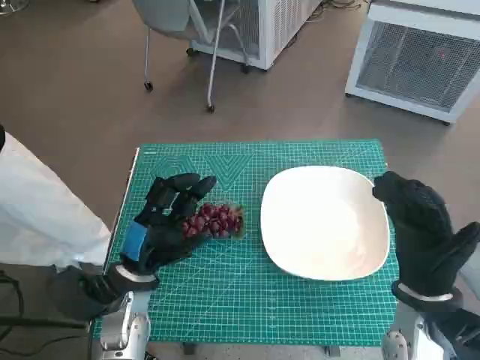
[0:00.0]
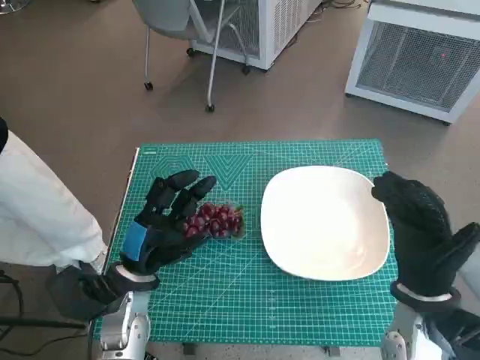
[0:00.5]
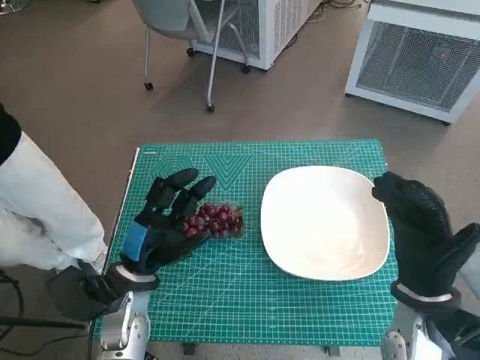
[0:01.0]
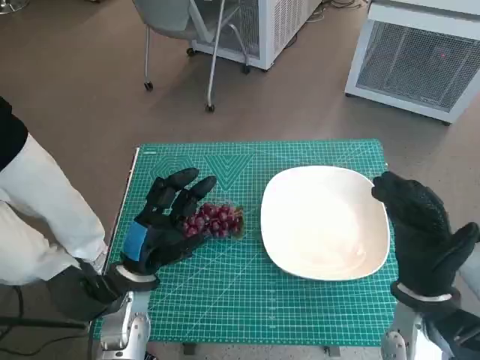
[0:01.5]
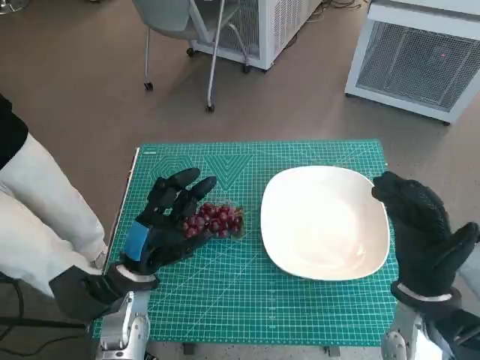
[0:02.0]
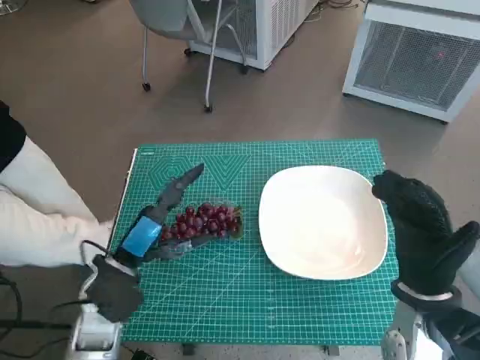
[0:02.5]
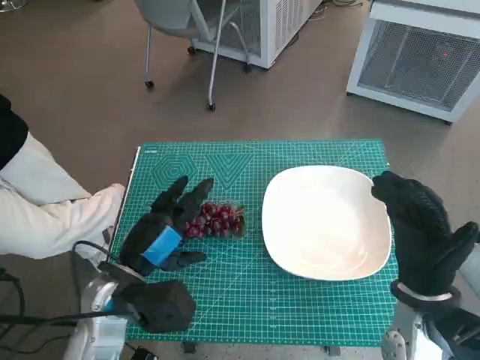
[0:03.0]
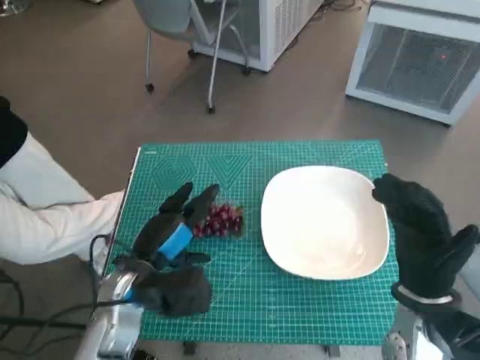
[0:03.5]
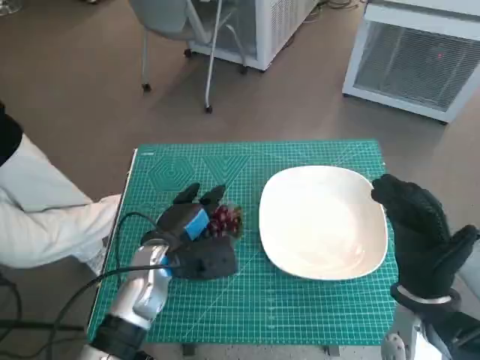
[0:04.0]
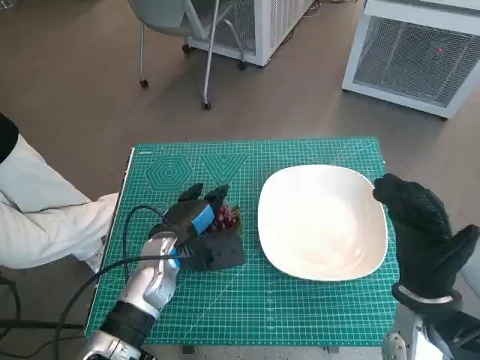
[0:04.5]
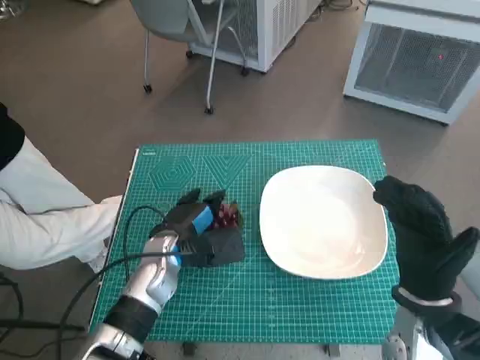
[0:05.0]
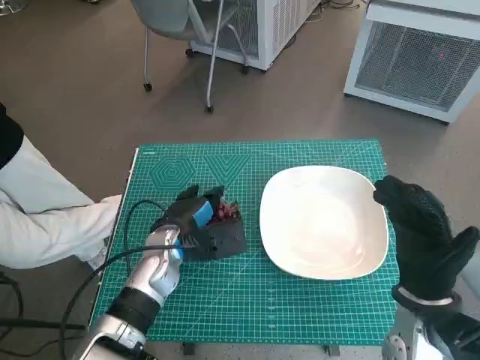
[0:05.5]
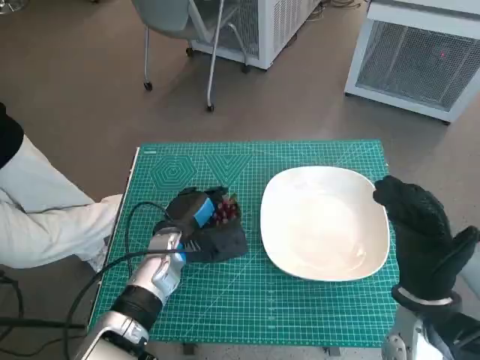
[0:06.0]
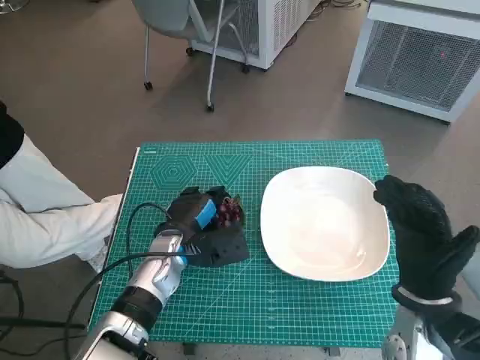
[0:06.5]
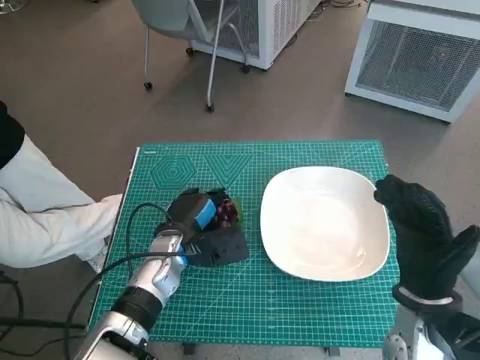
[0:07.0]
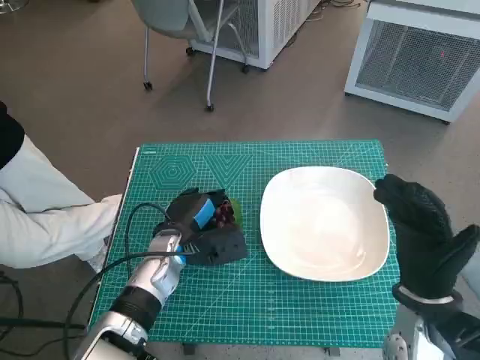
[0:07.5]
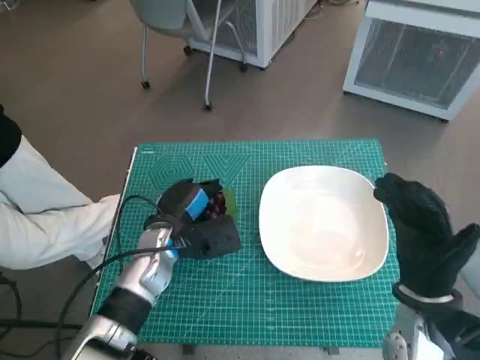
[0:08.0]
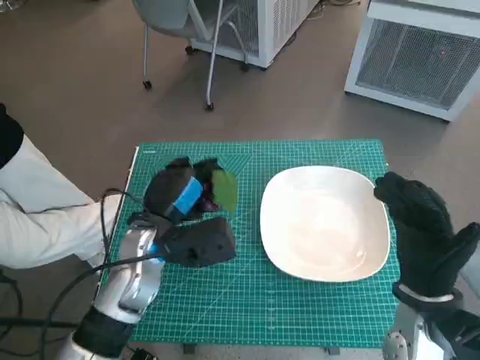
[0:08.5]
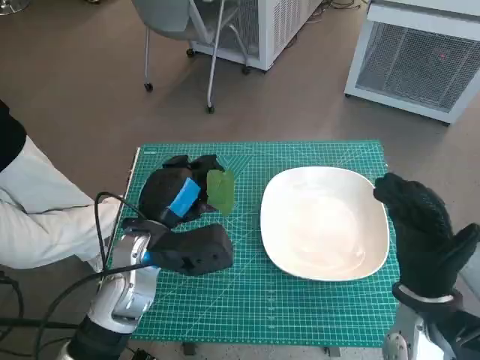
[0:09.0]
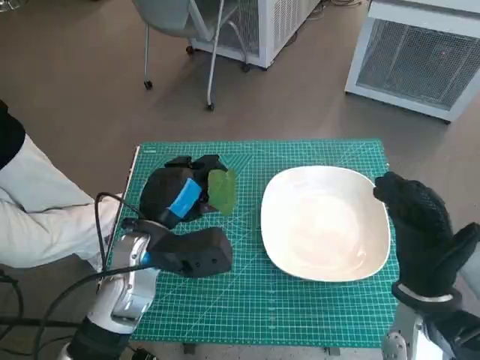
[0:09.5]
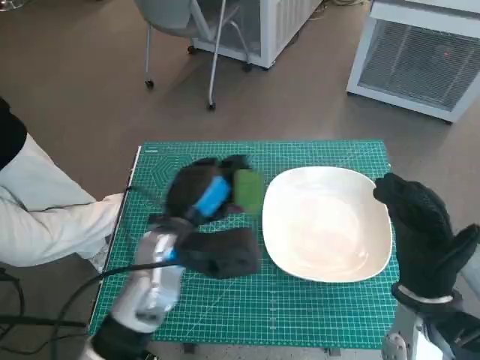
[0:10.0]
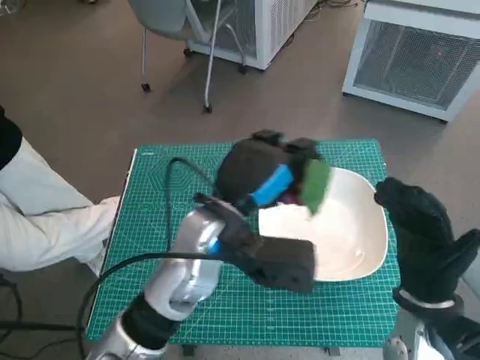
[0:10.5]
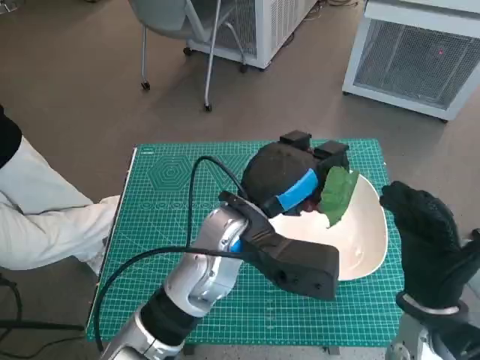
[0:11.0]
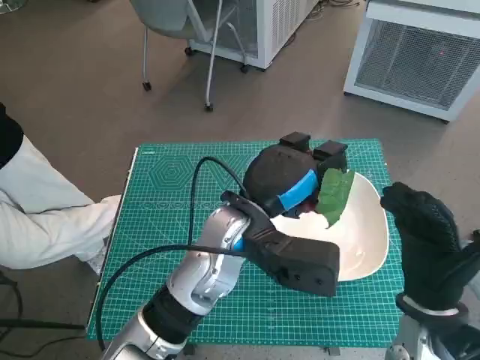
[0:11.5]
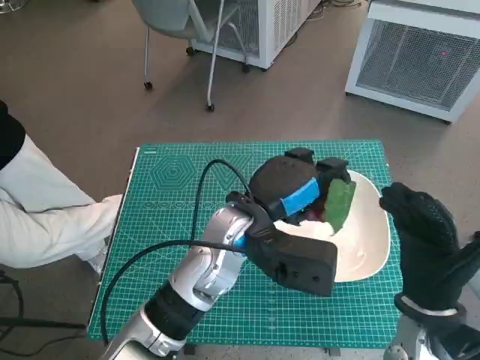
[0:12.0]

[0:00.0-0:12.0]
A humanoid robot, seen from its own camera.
Task of the whole recording: Pick up the grapes and put them on the plate.
Step, 0:00.0 to 0:07.0: Grasp the grapes with left hand.
0:02.0 to 0:04.0: The left hand changes place by some 5 cm.
0:04.0 to 0:08.0: The hands move only a little.
0:08.0 to 0:10.0: The left hand heads upward, covering about 5 cm.
0:10.0 to 0:12.0: The left hand travels to the right by roughly 10 cm.

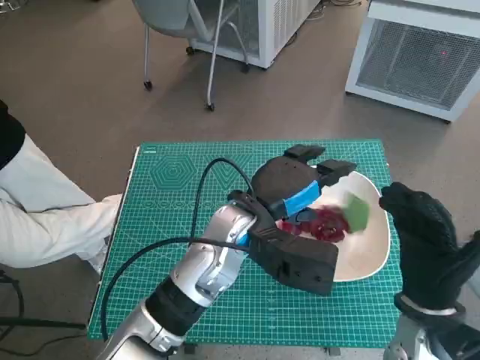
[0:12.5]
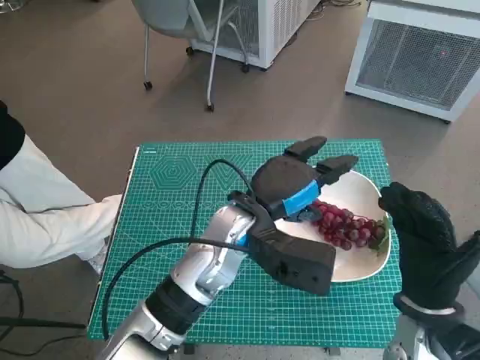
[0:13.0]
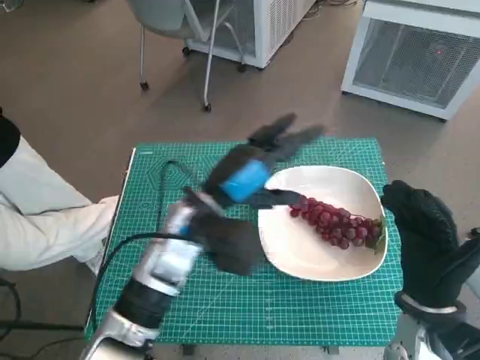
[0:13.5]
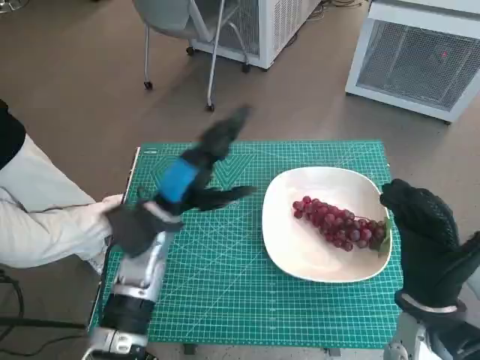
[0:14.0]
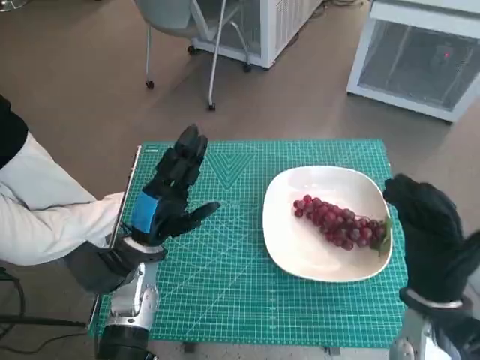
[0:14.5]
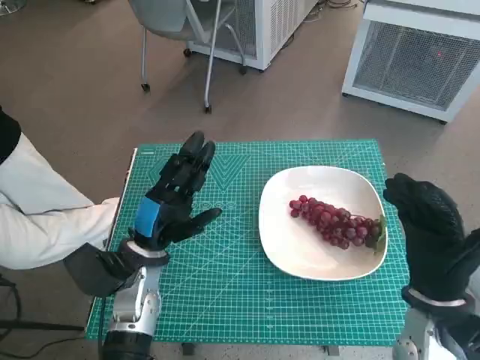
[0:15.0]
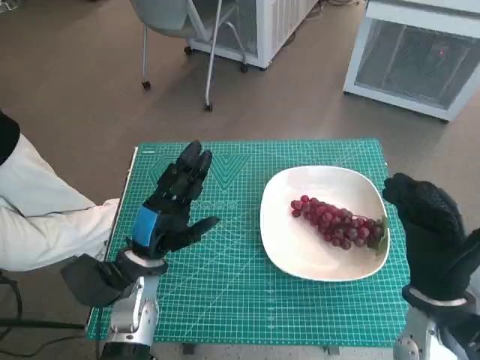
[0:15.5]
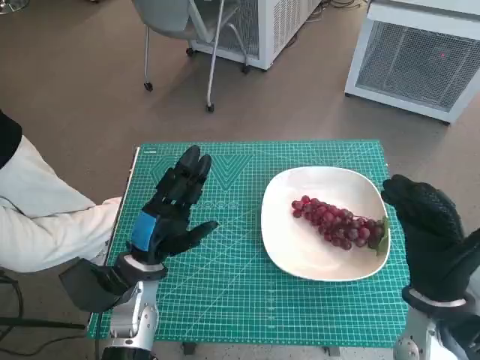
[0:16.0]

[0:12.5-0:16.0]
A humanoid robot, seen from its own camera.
Task of the whole recording: Pick up the grapes and put them on the plate.
0:12.5 to 0:14.5: The left hand moves to the left and downward, about 15 cm.
0:14.5 to 0:16.0: The hands move only a little.

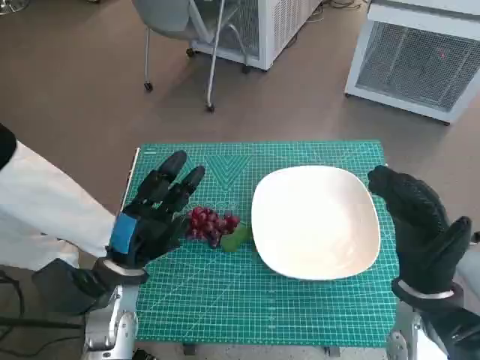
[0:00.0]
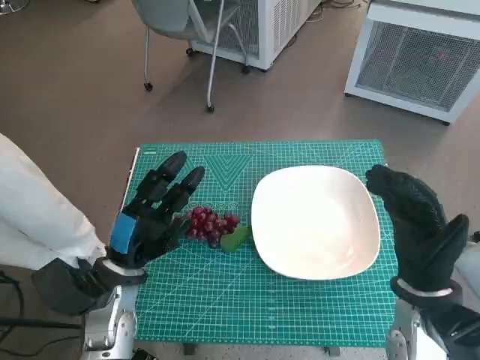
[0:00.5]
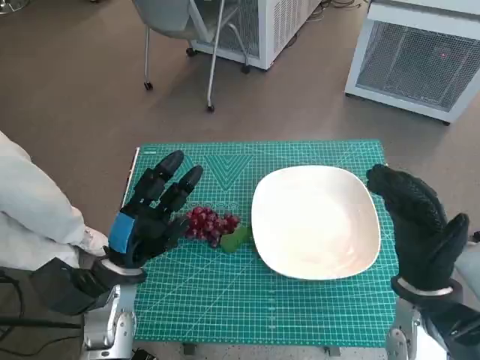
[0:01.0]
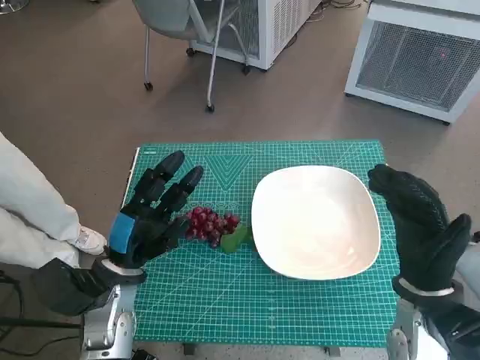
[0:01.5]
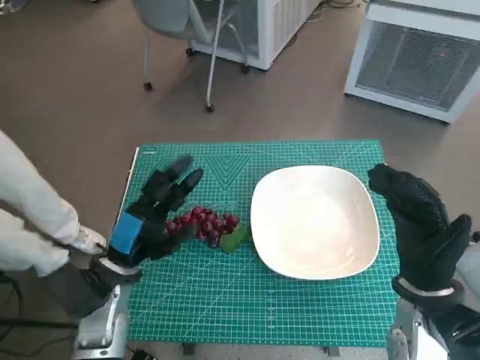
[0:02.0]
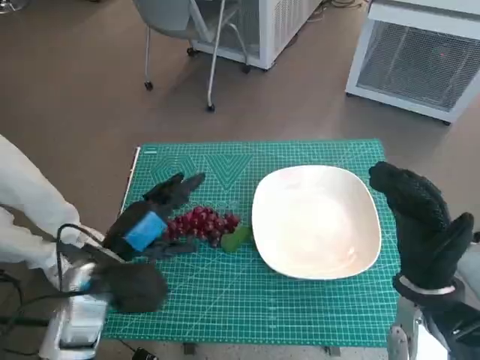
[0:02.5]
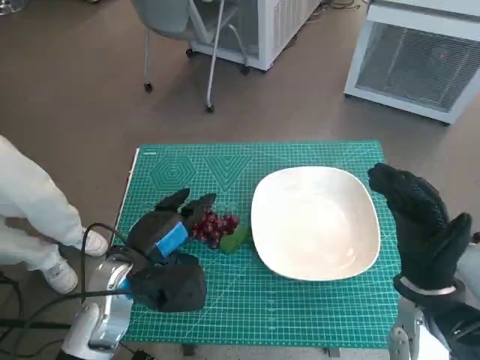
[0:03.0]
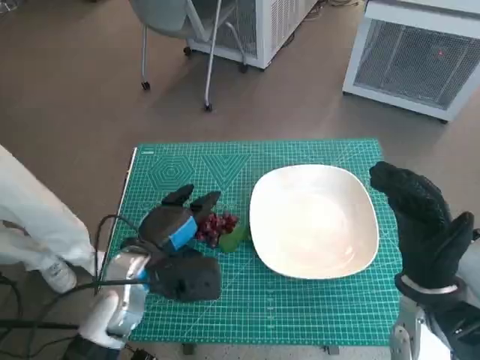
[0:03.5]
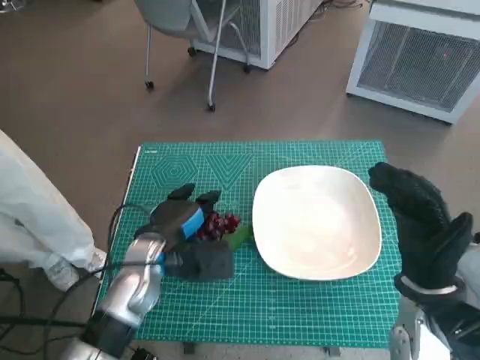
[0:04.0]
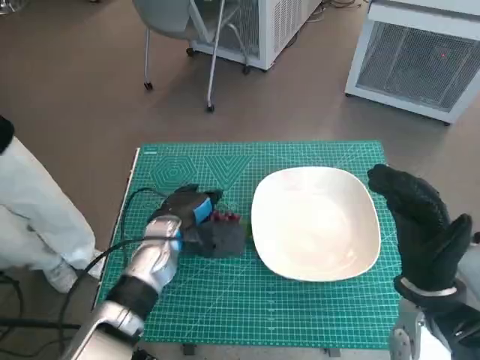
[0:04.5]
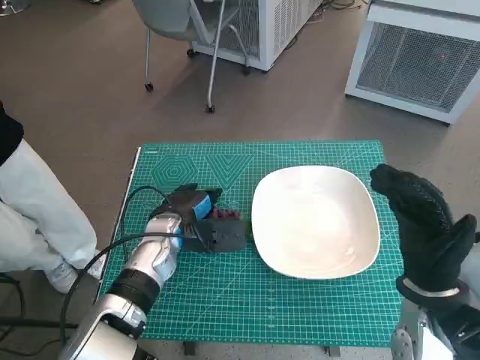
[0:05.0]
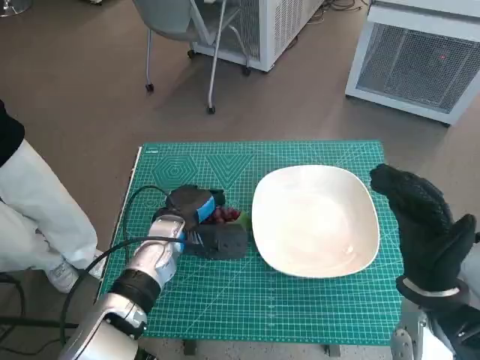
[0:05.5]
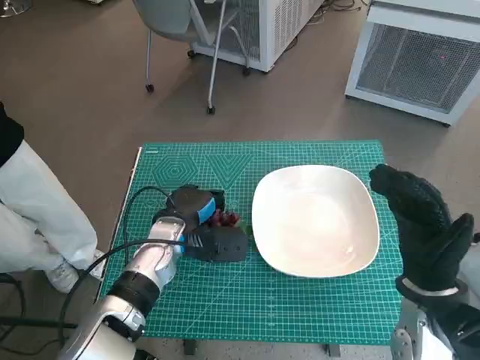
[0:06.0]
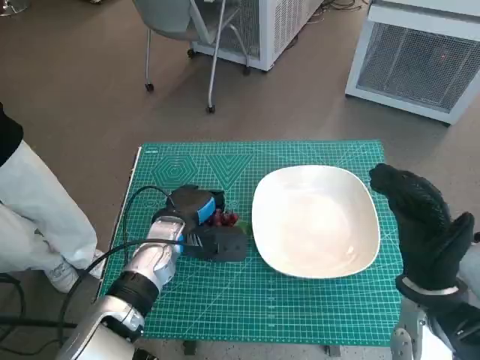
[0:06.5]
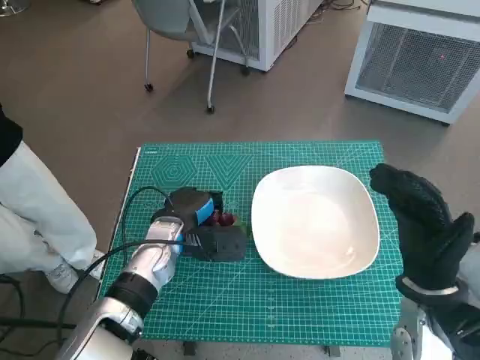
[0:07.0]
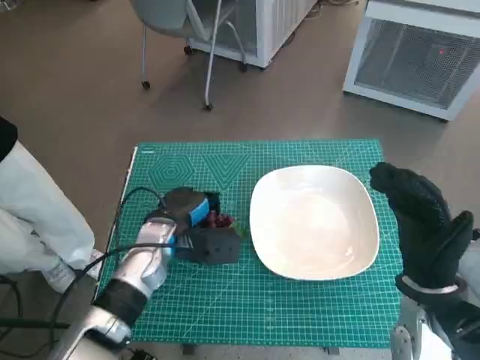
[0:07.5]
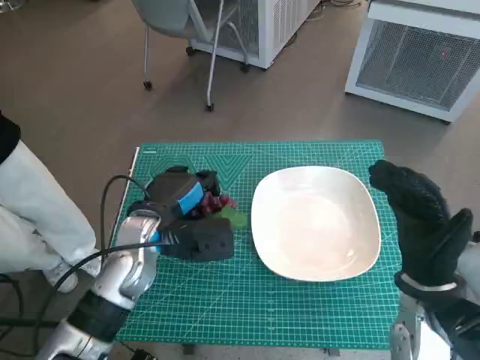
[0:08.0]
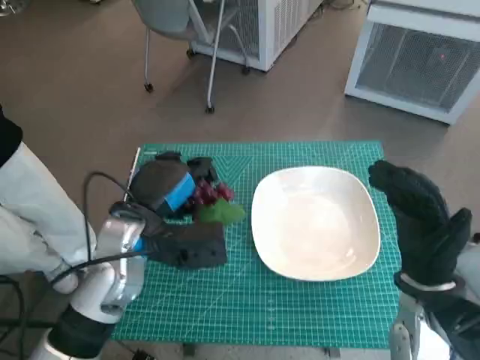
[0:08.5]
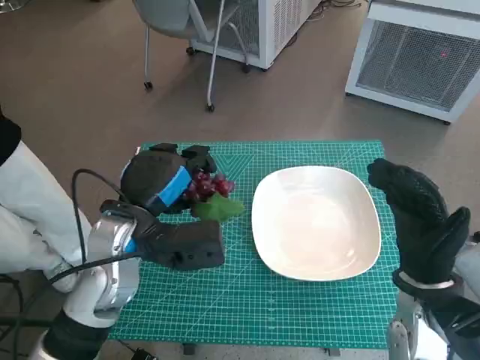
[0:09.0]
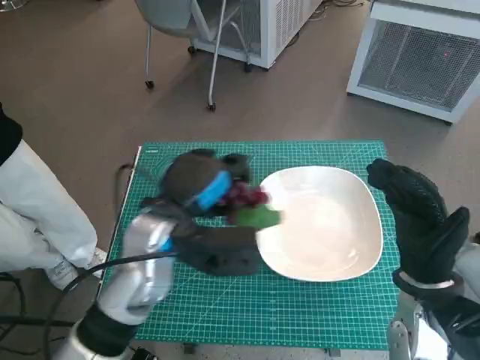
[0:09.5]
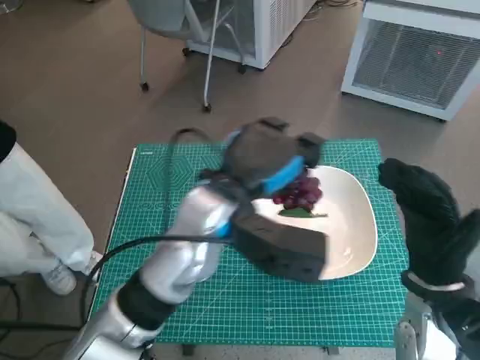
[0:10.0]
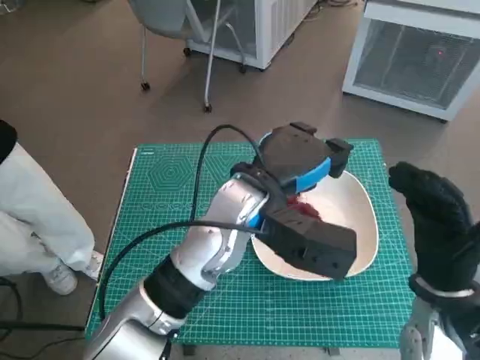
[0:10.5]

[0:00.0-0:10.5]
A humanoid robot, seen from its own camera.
Task of the whole recording: Pick up the grapes and put them on the plate.
Step, 0:00.0 to 0:07.5: Grasp the grapes with left hand.
0:02.0 to 0:04.0: The left hand ends up some 5 cm from where it was.
0:04.0 to 0:06.5: The hands make only small movements.
0:06.5 to 0:08.5: The left hand heads upward, covering roughly 10 cm.
0:08.5 to 0:10.5: The left hand heads to the right, covering about 15 cm.
